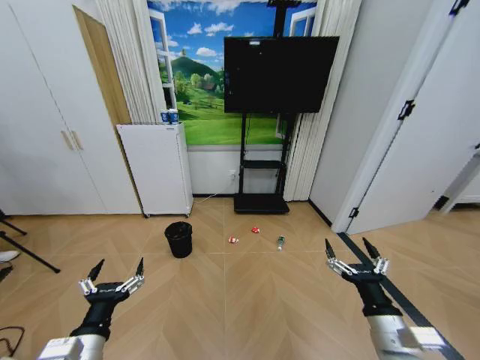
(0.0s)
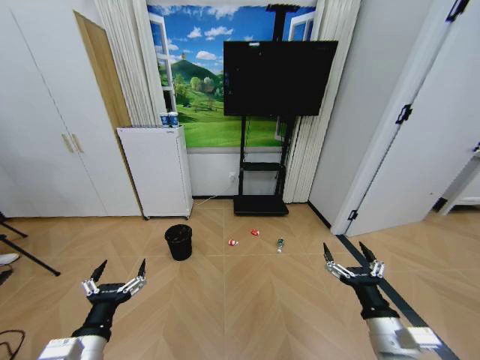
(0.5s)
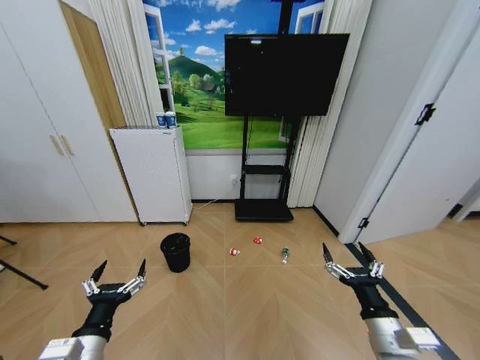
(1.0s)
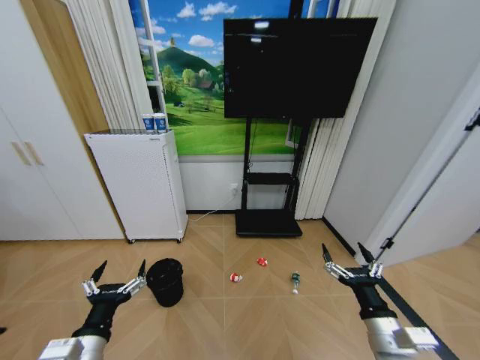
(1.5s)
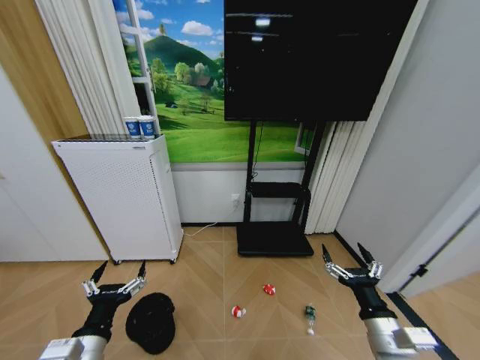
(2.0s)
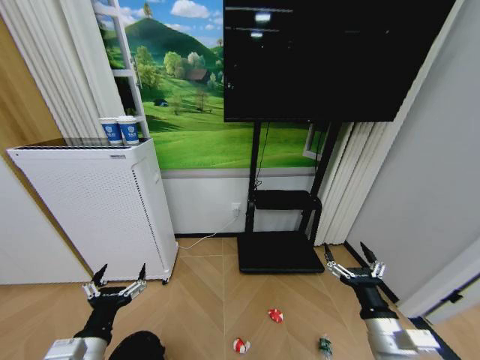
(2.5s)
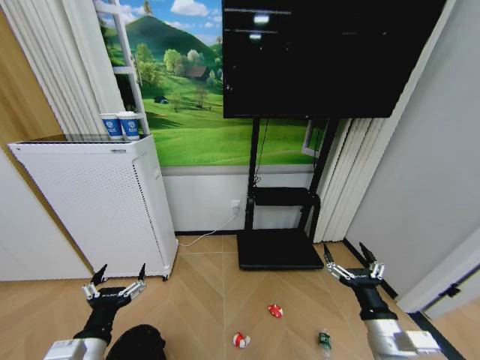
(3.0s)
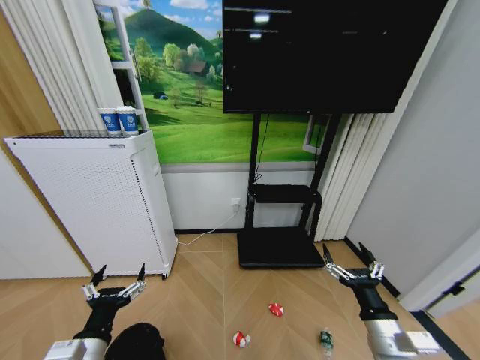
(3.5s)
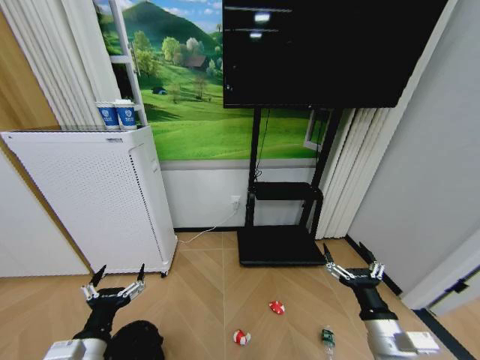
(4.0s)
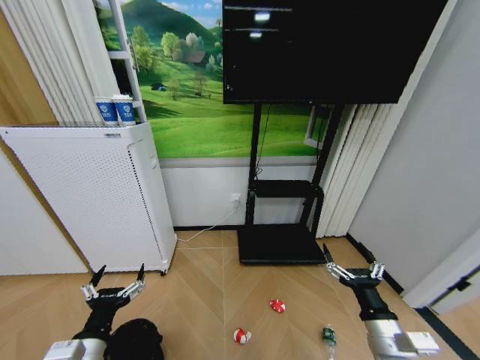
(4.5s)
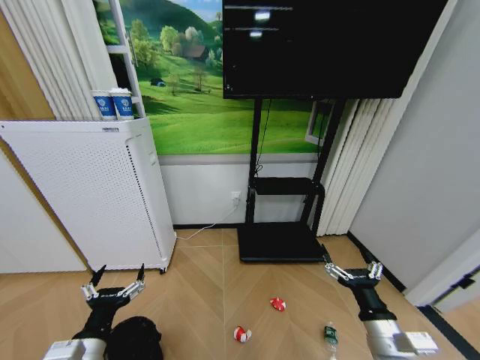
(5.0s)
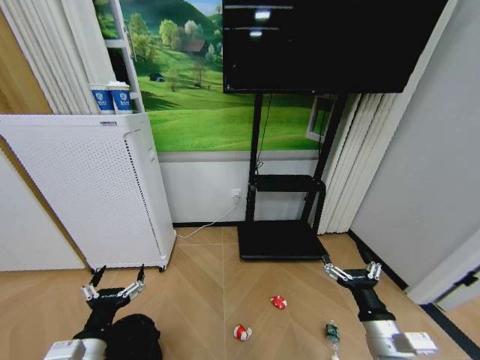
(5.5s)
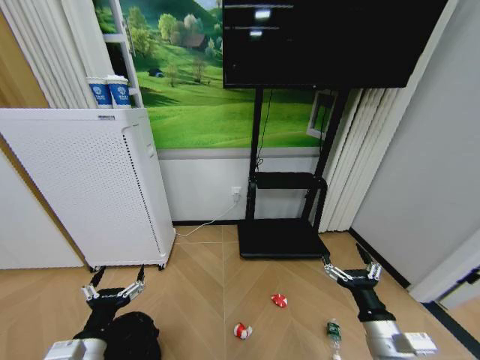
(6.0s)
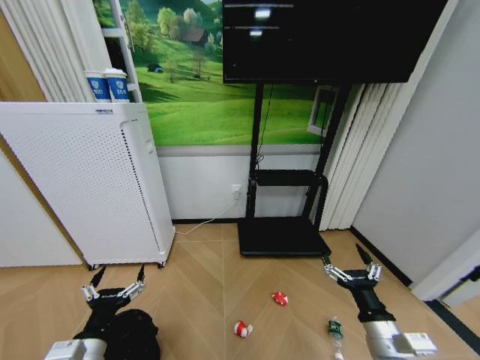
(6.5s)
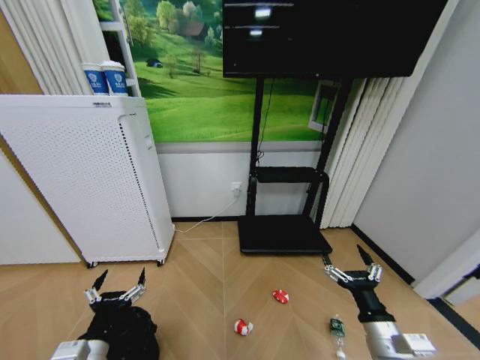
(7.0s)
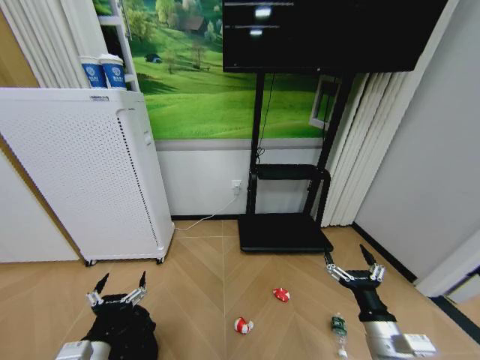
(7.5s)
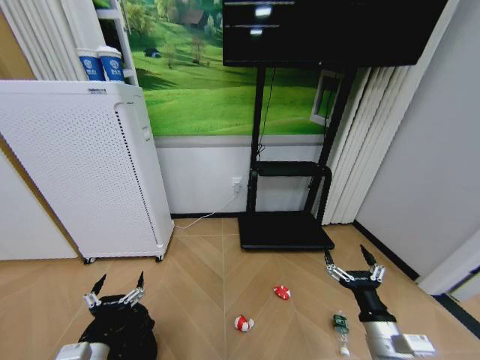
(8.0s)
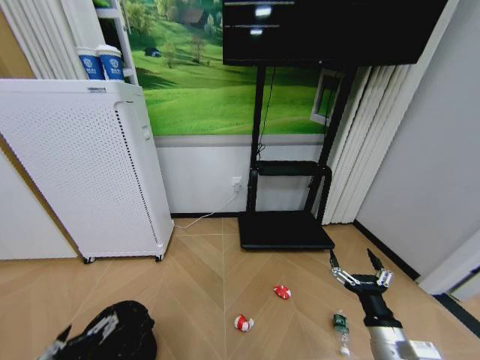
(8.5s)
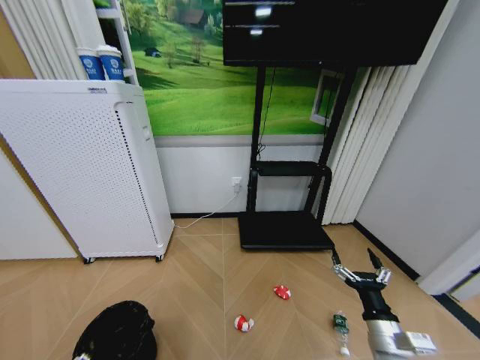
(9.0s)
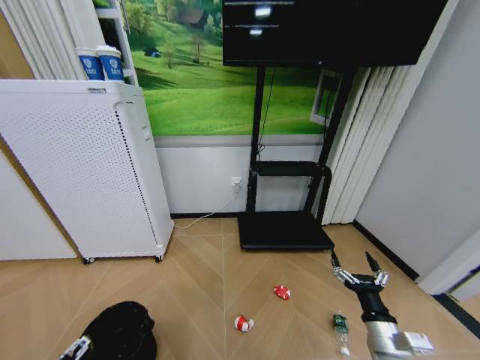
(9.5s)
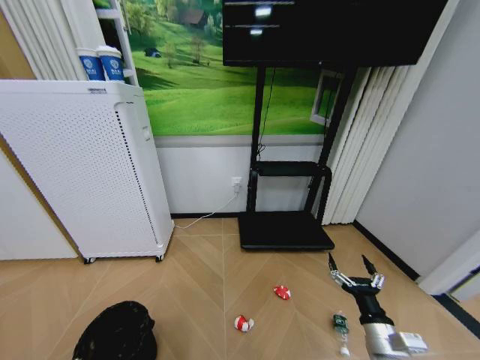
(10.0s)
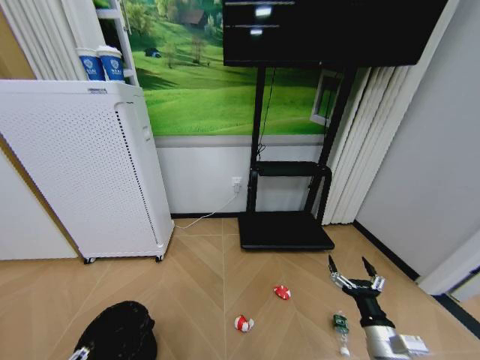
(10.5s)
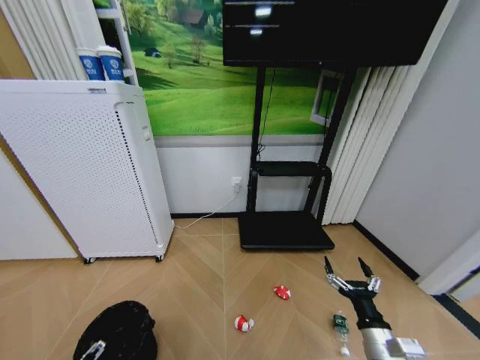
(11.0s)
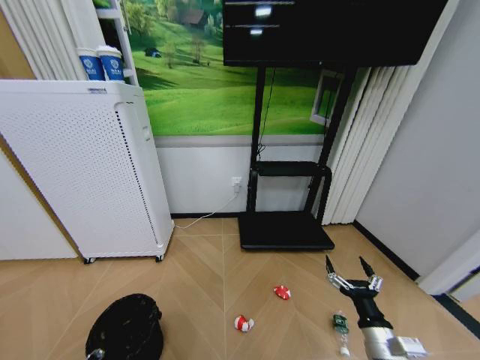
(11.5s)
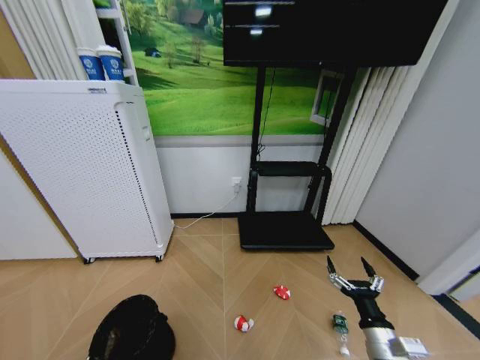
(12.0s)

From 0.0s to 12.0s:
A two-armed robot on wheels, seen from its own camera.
Task of the whole recording: Pick up the trash bin and place the garbage on the floor into it.
From 8.0s to 10.0s: The left gripper heads to the left and backward, covering some 10 cm.
From 10.0s to 12.0s: The left gripper travels downward and forward by approximately 10 cm, and closes its fingers.

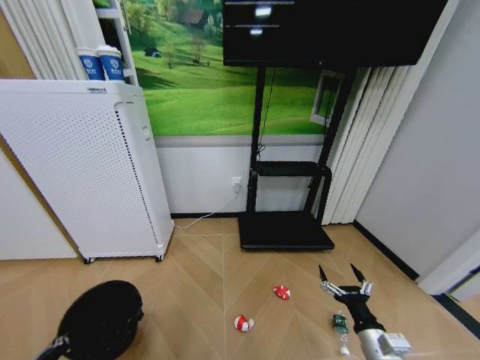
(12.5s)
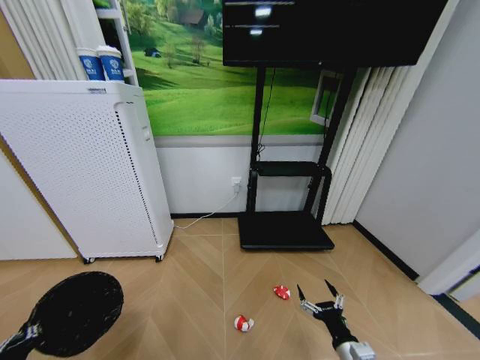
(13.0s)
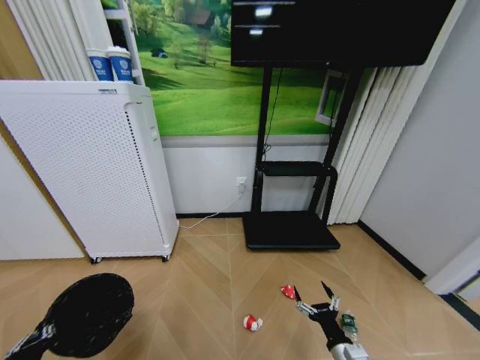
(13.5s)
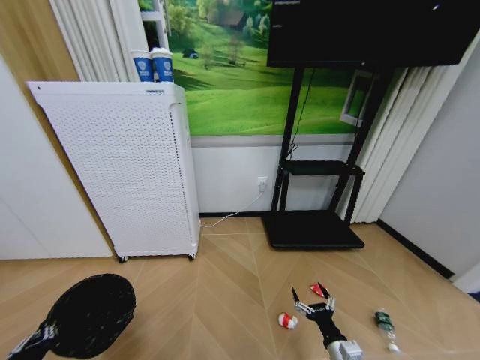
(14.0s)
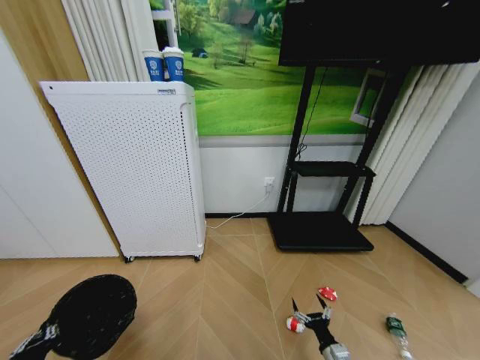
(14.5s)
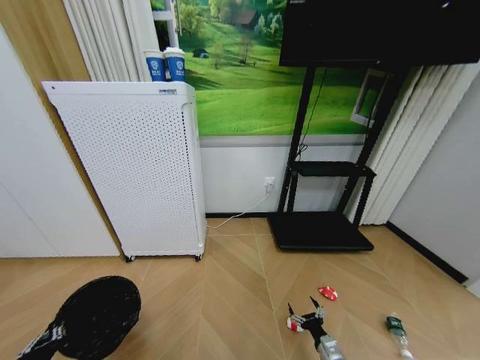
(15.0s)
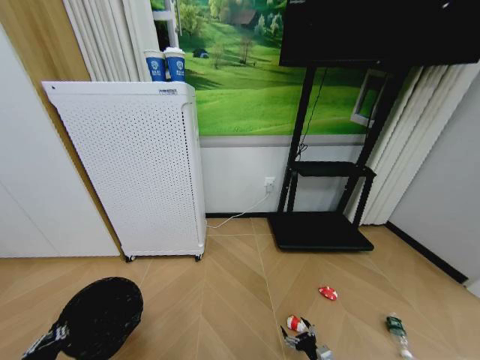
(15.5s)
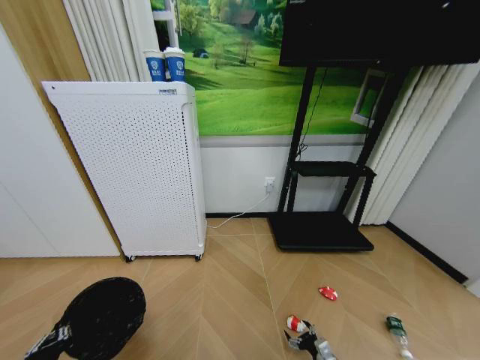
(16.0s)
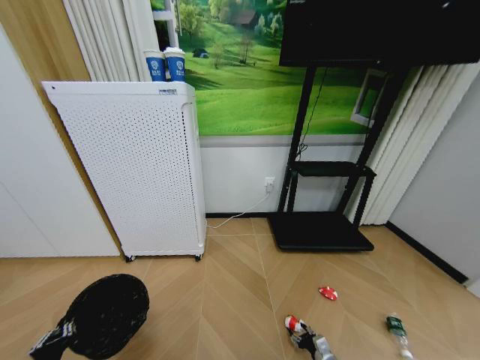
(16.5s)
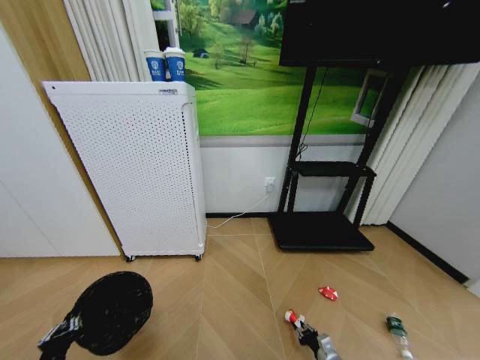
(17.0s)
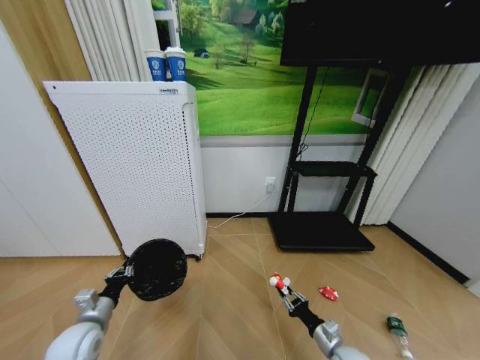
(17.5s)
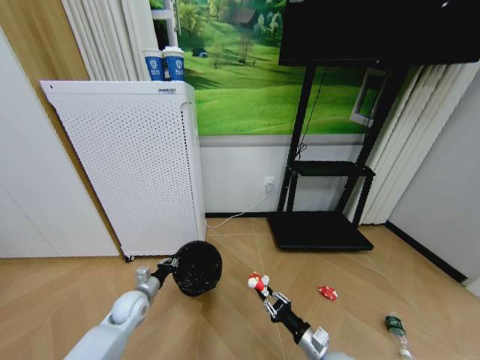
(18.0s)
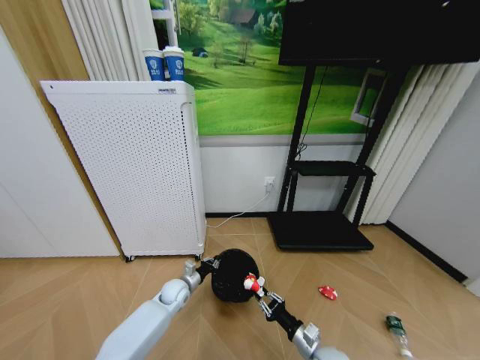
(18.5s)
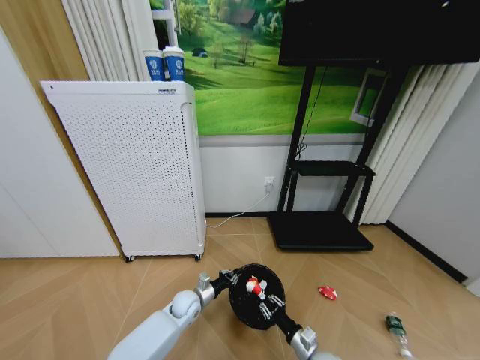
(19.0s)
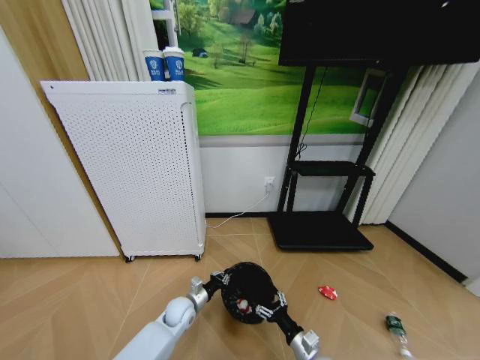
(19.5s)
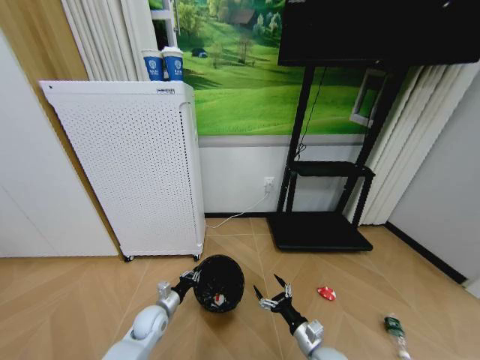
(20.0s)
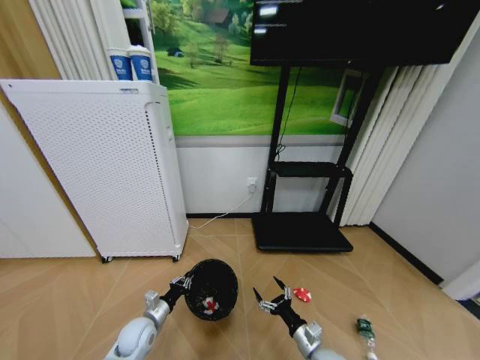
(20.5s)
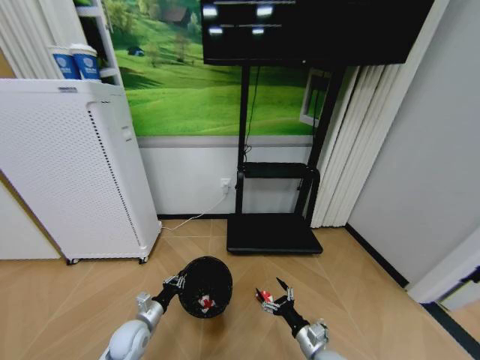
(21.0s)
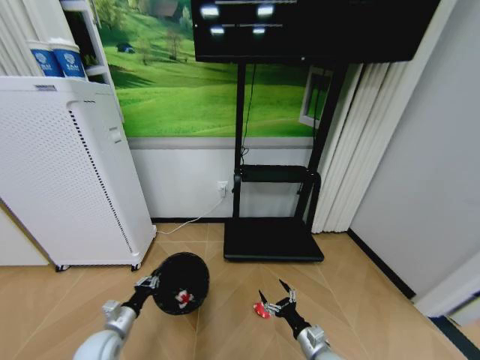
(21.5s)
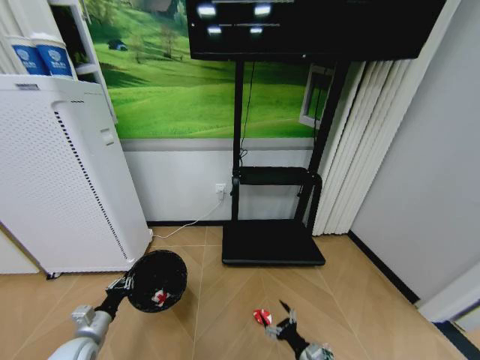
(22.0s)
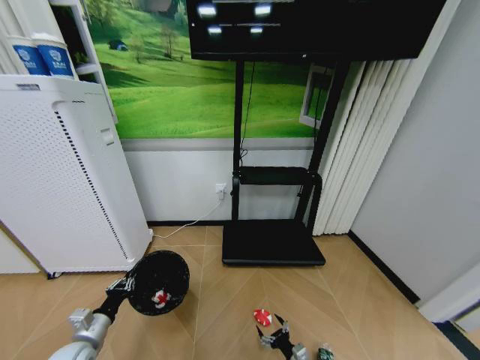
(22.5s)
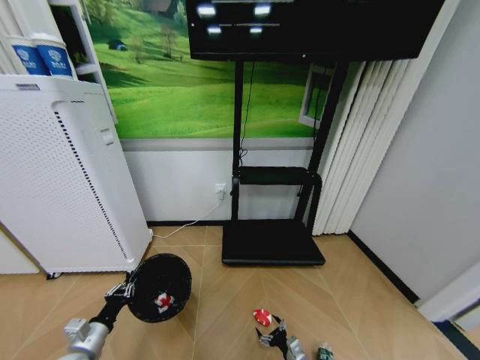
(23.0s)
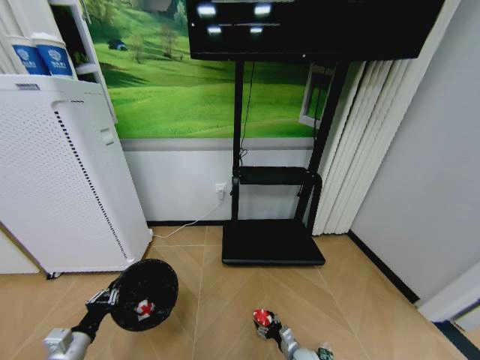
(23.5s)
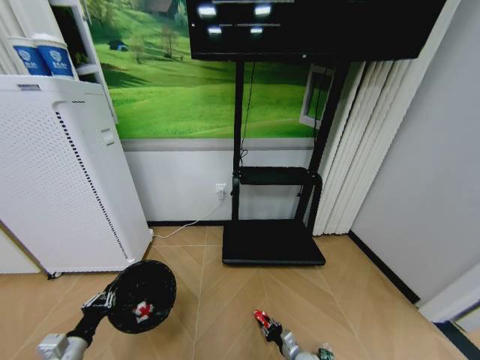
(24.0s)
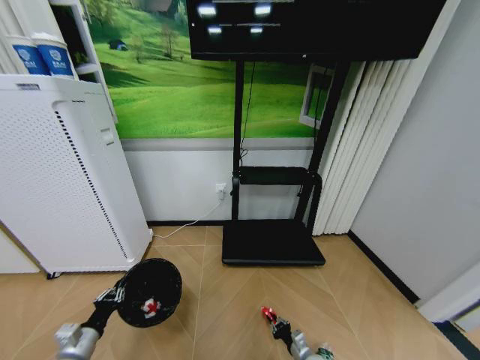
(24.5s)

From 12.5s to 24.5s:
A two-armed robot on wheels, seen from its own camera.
Task of the whole recording: Pick up the trash bin and place the garbage on the floor into it.
From 12.5s to 14.5s: The right gripper goes some 15 cm downward.
From 14.5s to 16.5s: The right gripper moves downward, roughly 10 cm.
From 16.5s to 18.5s: The right gripper travels upward and to the left by some 20 cm, and closes up; the left gripper moves forward and to the right, about 35 cm.
From 18.5s to 20.5s: The left gripper is displaced backward and to the left by some 15 cm. Meanwhile the right gripper opens its fingers.
From 20.5s to 22.5s: The left gripper travels to the left, backward and upward by roughly 15 cm; the right gripper heads downward, covering some 15 cm.
From 22.5s to 24.5s: The right gripper changes place by about 5 cm, and closes.

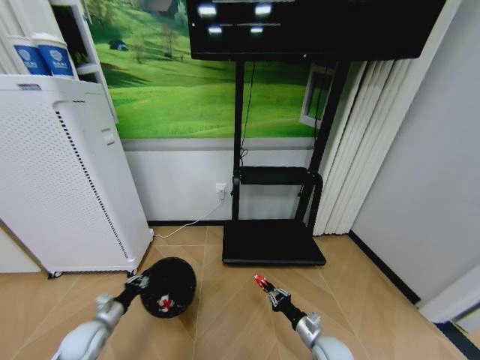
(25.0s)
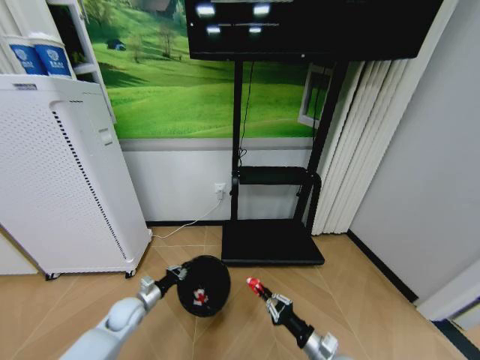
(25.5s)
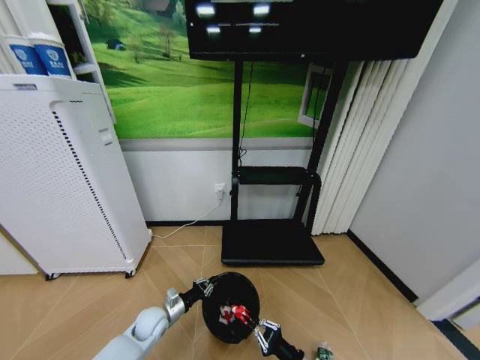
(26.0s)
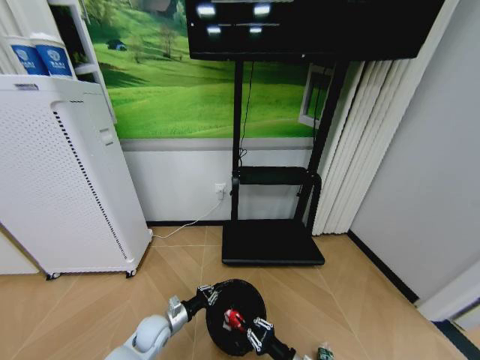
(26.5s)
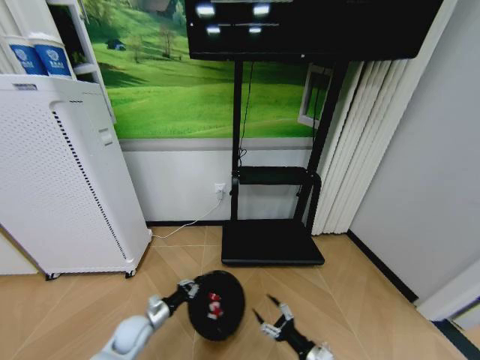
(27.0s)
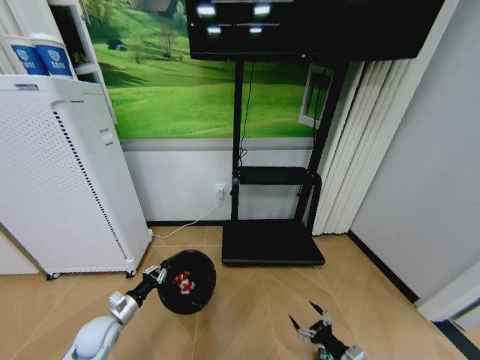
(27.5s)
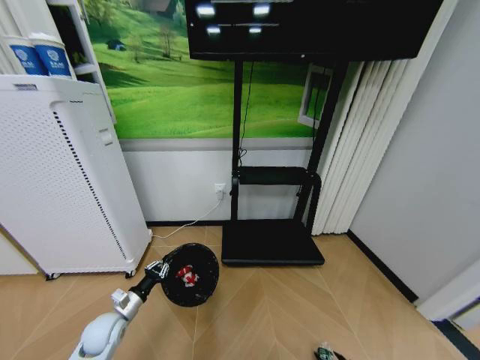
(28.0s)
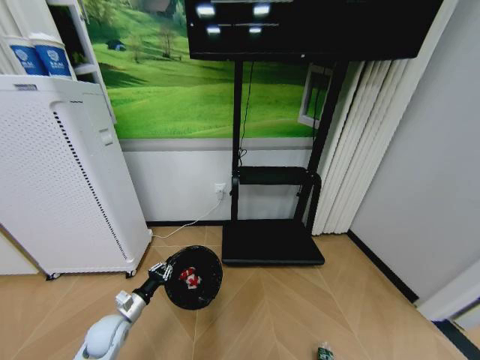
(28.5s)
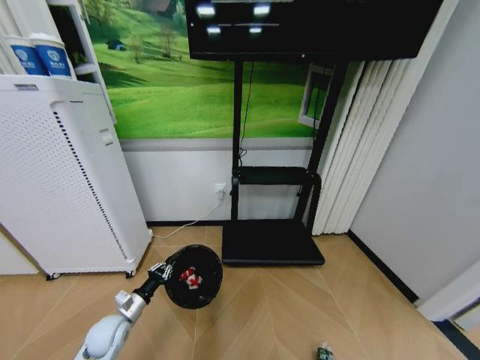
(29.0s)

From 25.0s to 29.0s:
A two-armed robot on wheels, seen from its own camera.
Task of the whole recording: Pick up the trash bin and place the garbage on the floor into it.
From 25.0s to 27.0s: The right gripper is displaced backward by about 10 cm, and opens; the left gripper shifts some 15 cm to the right.
From 27.0s to 29.0s: The right gripper is displaced to the right, downward and backward by approximately 15 cm. Meanwhile the left gripper shifts approximately 5 cm to the left.
